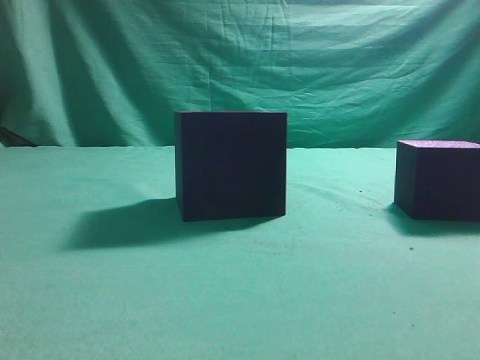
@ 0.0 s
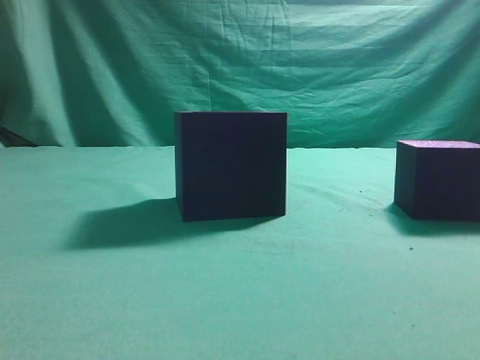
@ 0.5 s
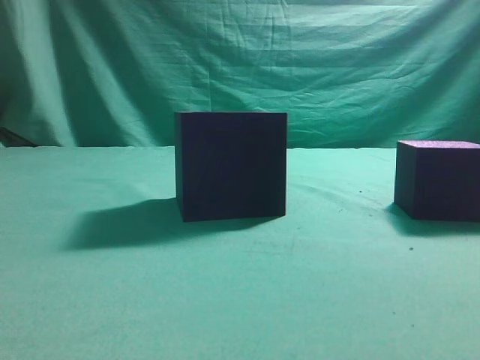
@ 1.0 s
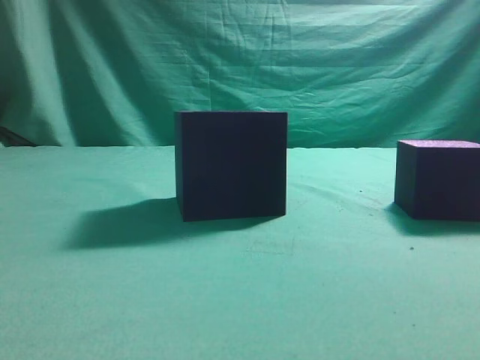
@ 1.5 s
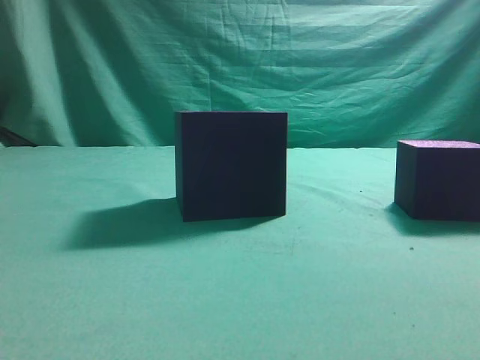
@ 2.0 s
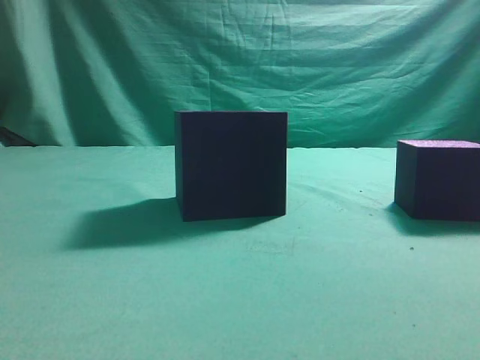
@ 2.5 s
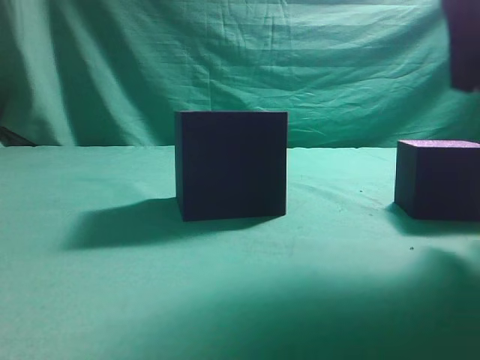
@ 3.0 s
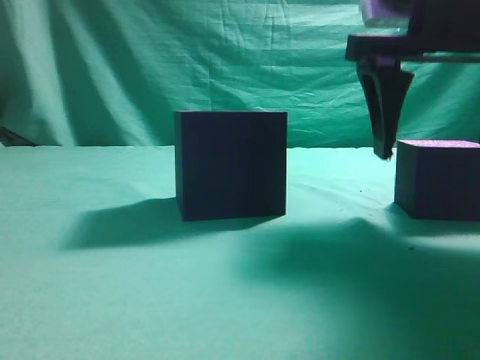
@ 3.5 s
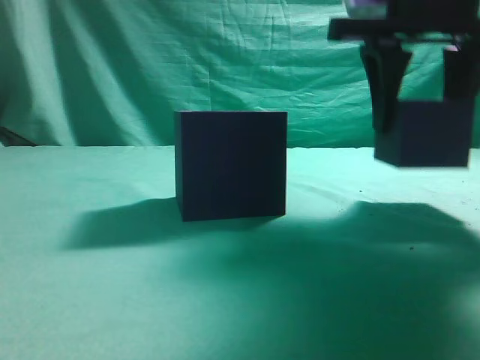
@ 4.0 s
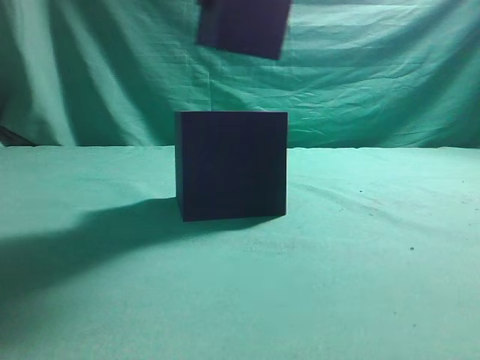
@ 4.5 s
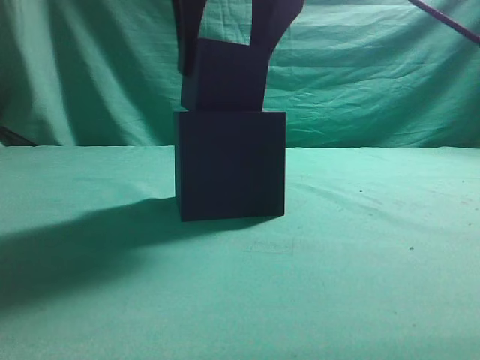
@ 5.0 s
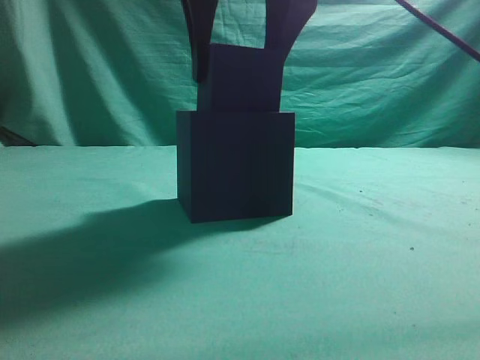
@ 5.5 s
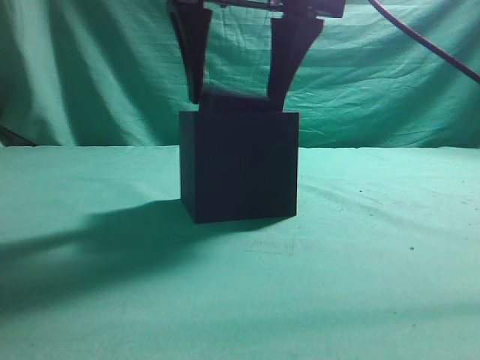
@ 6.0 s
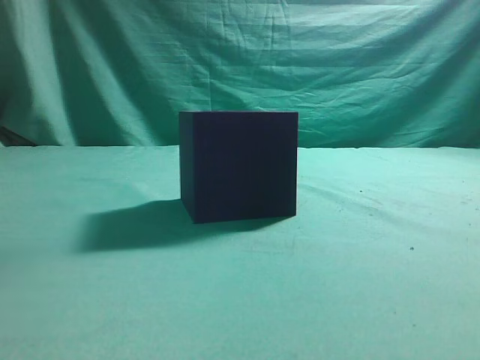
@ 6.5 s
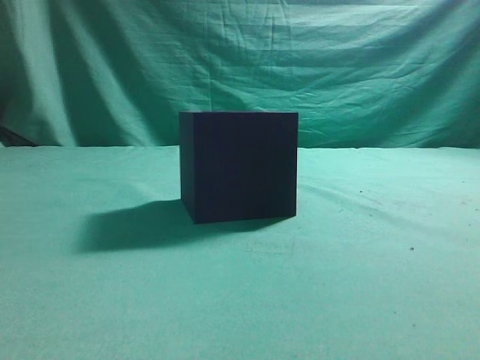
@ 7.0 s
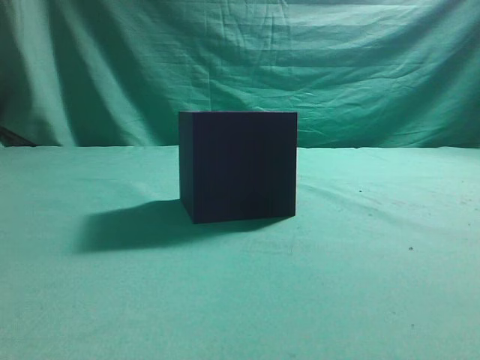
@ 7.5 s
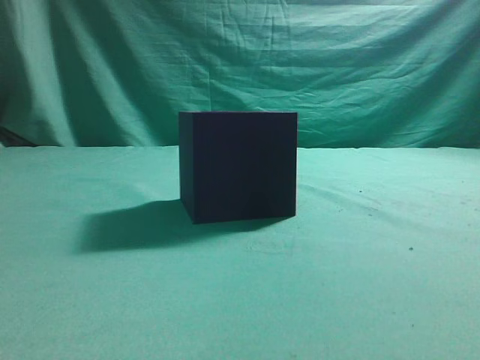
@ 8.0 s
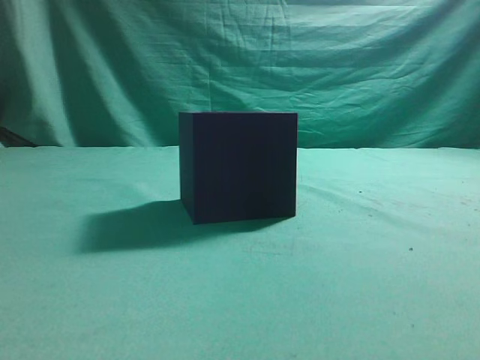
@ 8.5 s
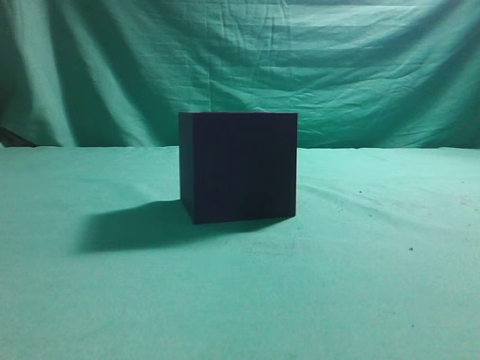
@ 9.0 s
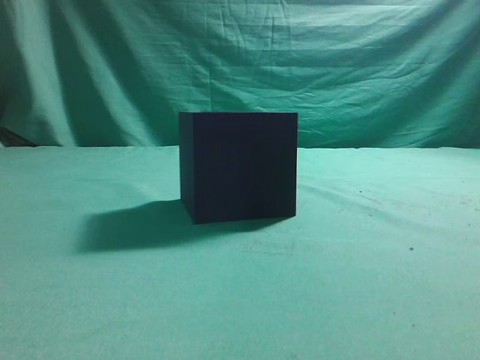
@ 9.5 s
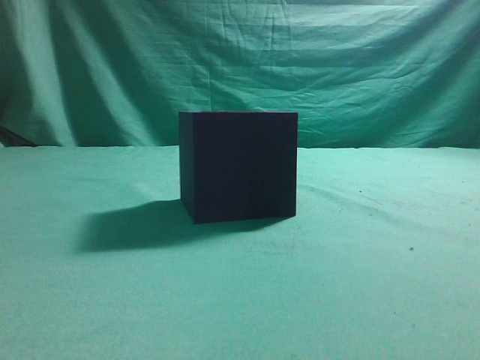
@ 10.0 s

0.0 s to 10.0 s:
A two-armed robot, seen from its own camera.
Task of the whole recording: pick up the cube block and place it into the cube groove.
Step, 0.0 to 4.0 s: Grasp the cube.
Step, 4.5 to 6.0 s: Place cube into the cube-shaped recess.
2.0 to 4.0 s: The right gripper moves forward and to the left, approximately 25 cm, and opens its fingers.
4.0 to 6.0 s: The right gripper moves to the left, some 15 cm.
6.0 to 8.0 s: The right gripper shifts roughly 35 cm backward, to the right and upward, and closes.
